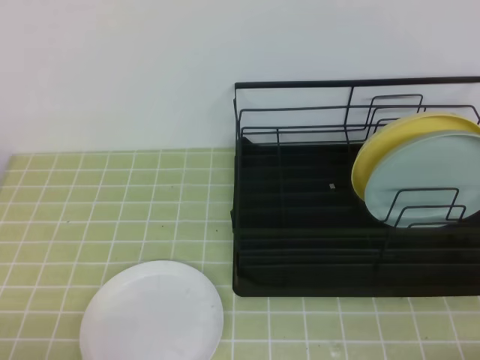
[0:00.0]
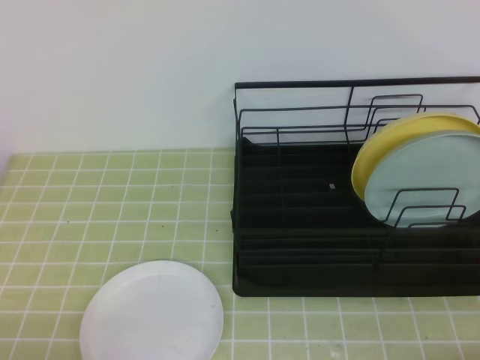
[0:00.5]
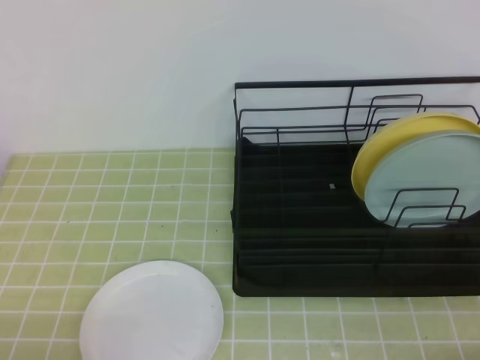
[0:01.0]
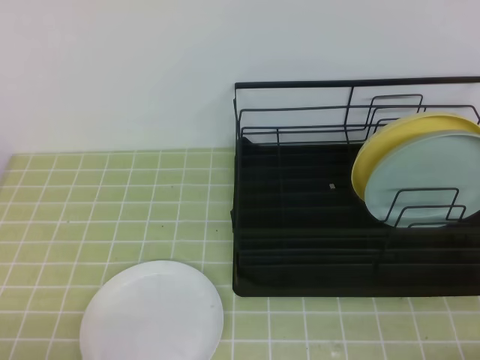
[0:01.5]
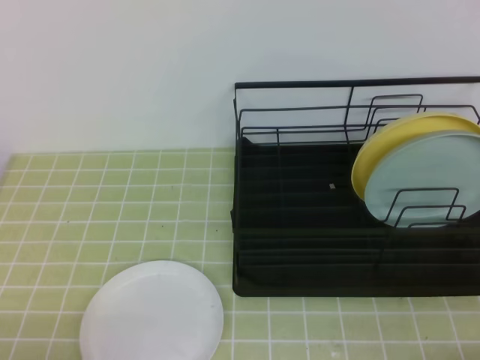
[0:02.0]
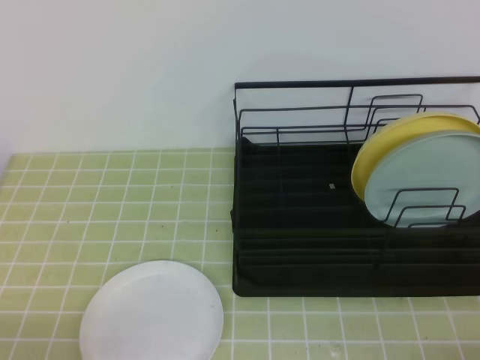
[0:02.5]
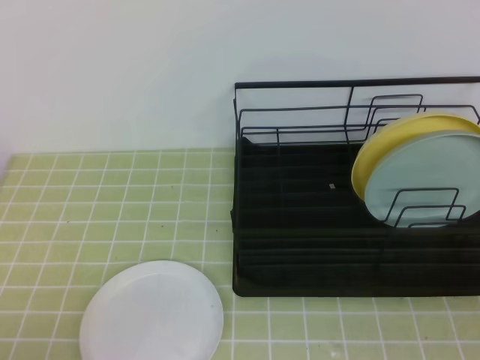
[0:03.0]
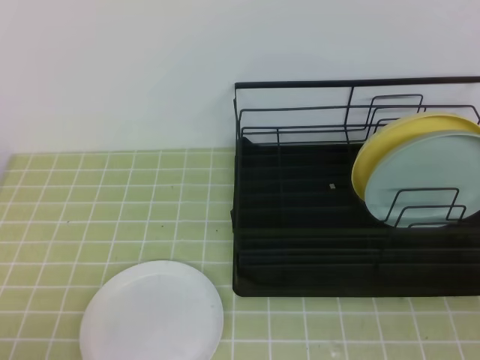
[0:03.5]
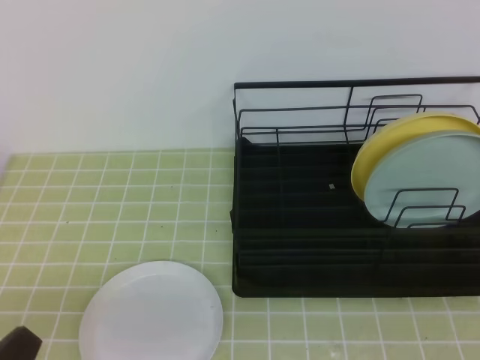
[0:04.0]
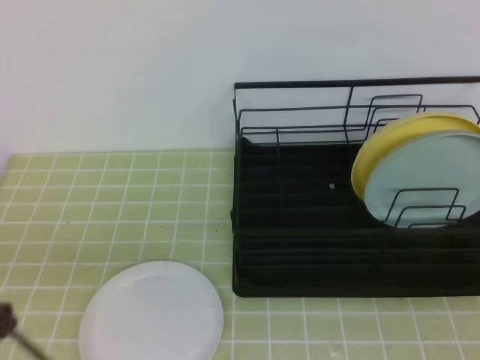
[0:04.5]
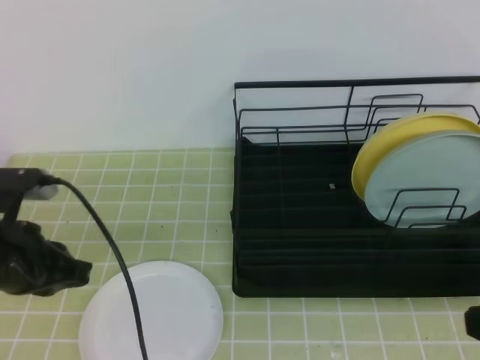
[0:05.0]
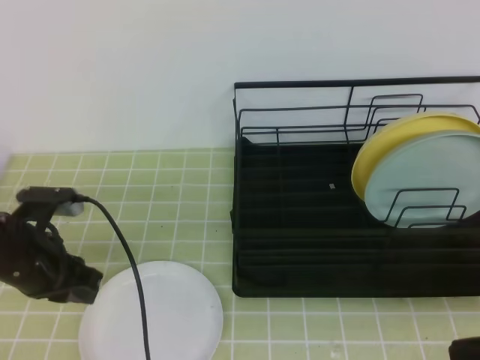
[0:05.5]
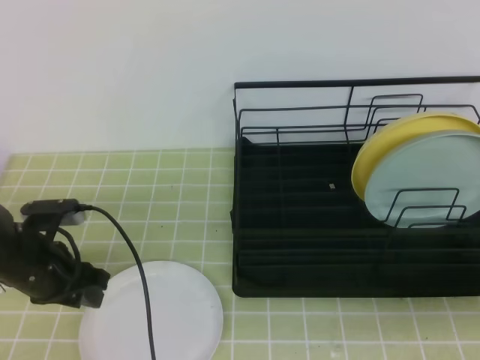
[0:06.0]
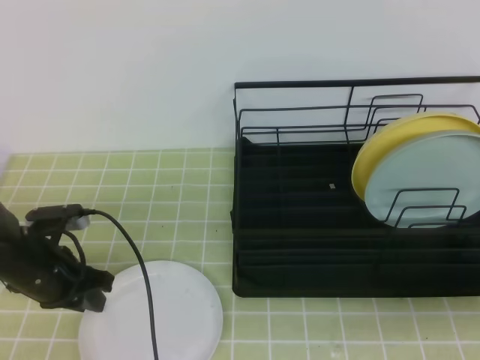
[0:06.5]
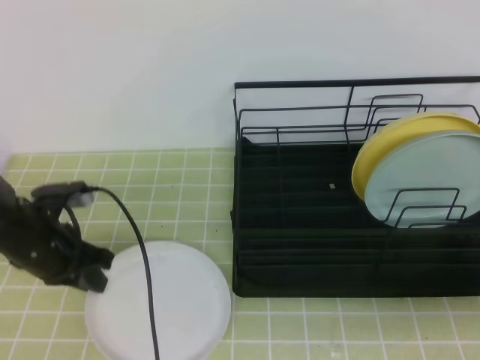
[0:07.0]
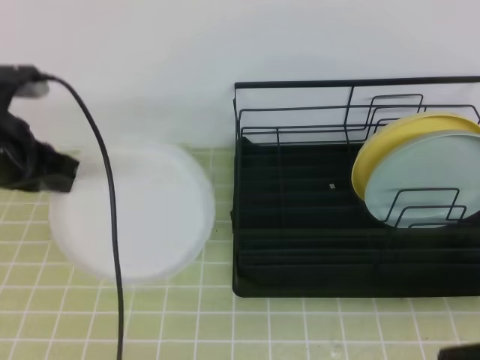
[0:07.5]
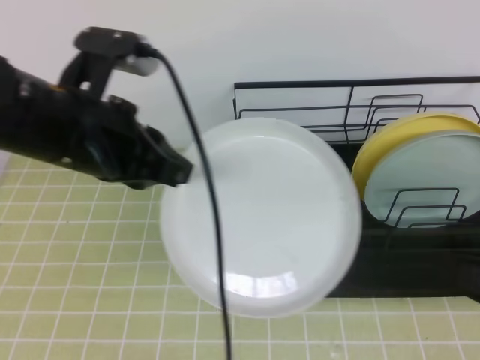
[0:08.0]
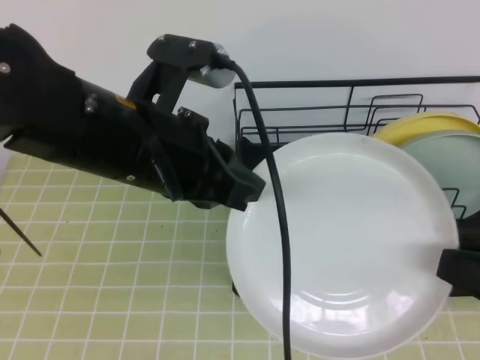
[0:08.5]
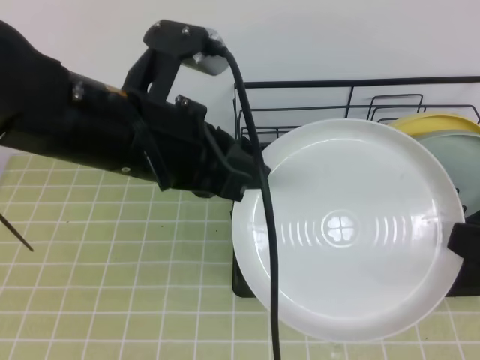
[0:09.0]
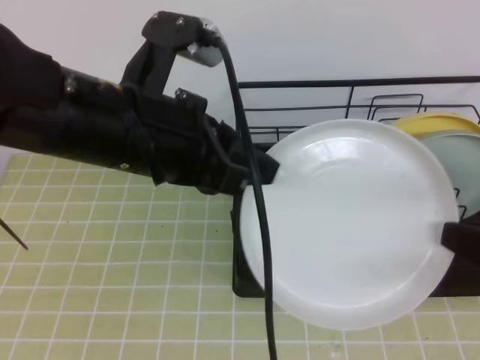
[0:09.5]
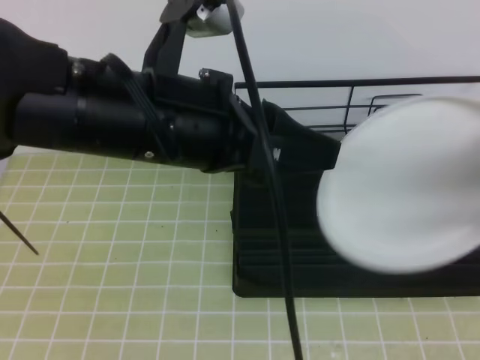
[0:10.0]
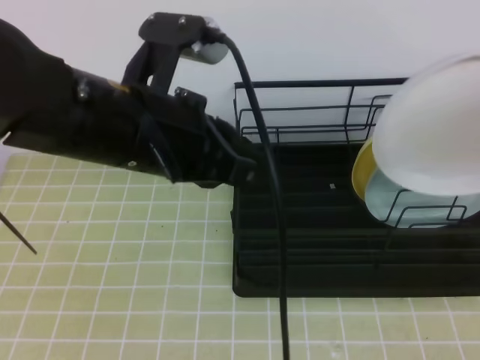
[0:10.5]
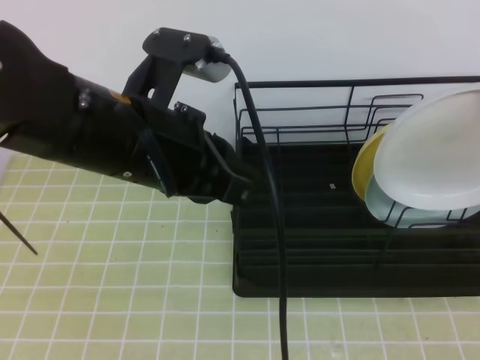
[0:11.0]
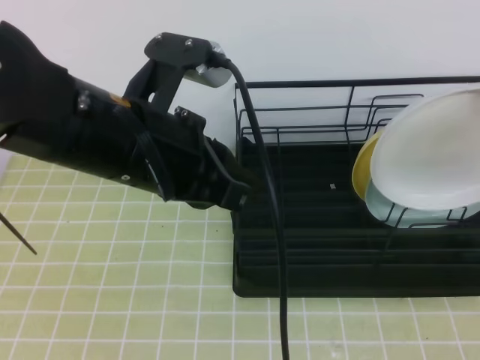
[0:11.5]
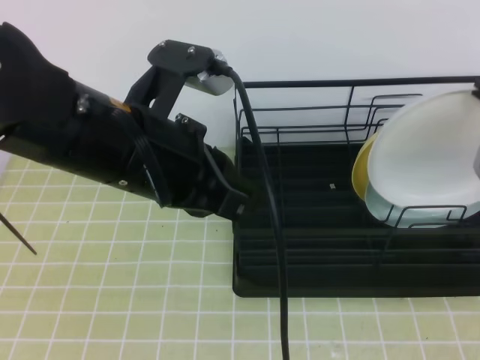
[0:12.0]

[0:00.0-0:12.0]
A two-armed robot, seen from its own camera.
Step, 0:00.0 to 0:05.5: Left grab the white plate.
0:02.0 to 0:04.0: The left gripper changes place by roughly 5 cm; the right gripper goes roughly 10 cm upward.
0:04.0 to 0:06.0: The left gripper heads forward, covering approximately 25 cm, and opens its fingers.
0:06.0 to 0:08.0: The left gripper travels upward by approximately 20 cm, and closes its fingers.
0:08.0 to 0:10.0: The right gripper heads forward, covering about 5 cm, and opens, then closes again; the left gripper is displaced to the right by about 10 cm, and opens up.
0:10.0 to 0:12.0: The left gripper closes up; the right gripper travels forward by some 10 cm.

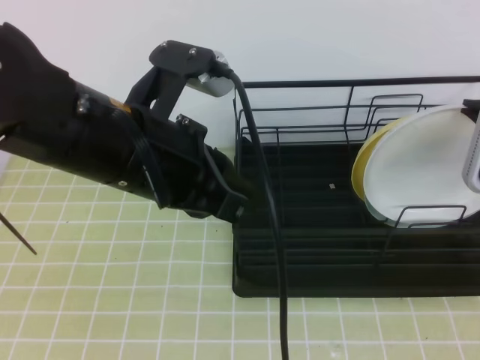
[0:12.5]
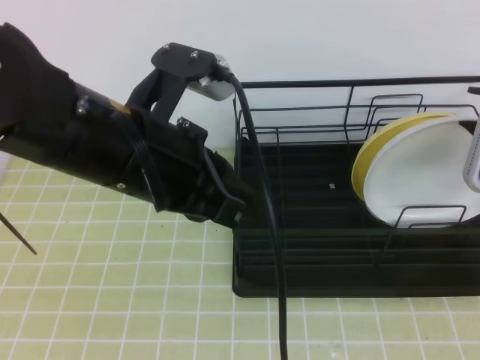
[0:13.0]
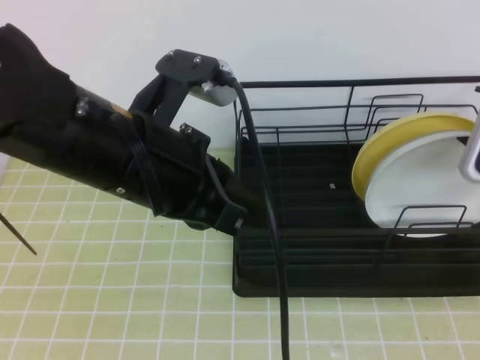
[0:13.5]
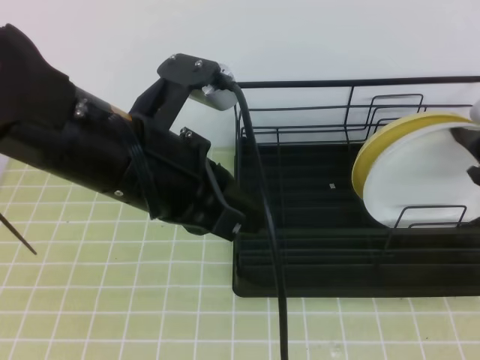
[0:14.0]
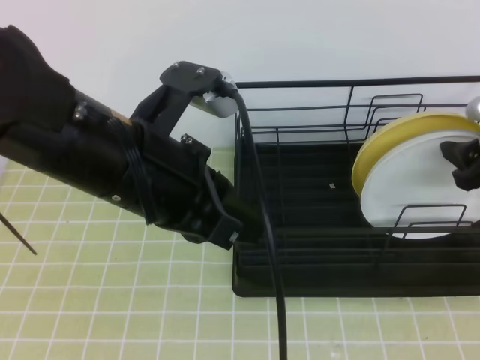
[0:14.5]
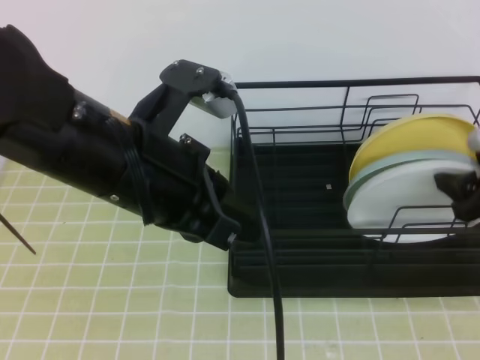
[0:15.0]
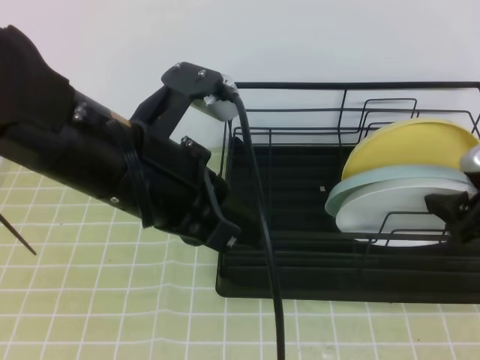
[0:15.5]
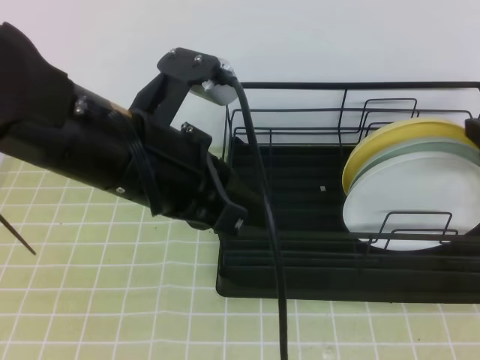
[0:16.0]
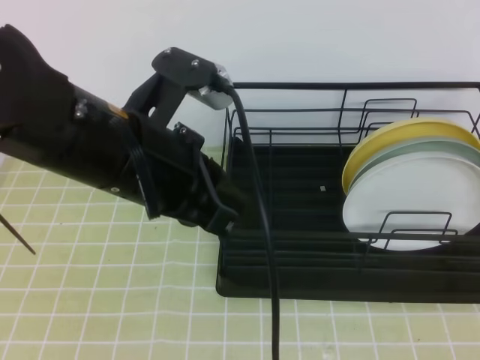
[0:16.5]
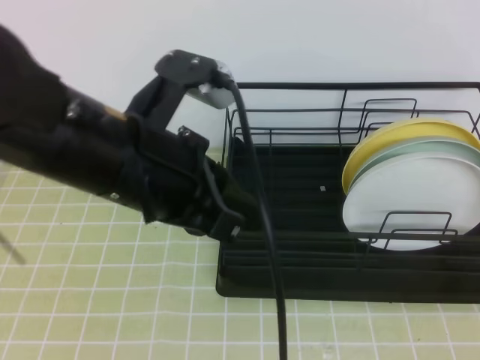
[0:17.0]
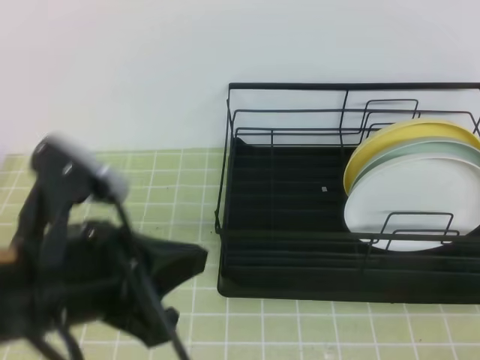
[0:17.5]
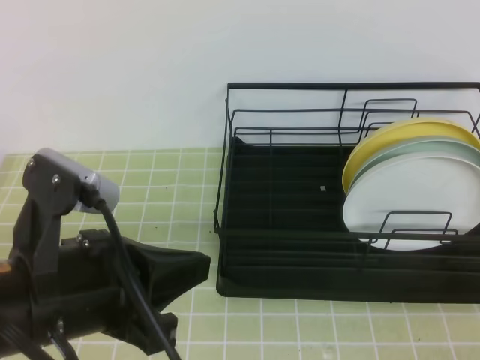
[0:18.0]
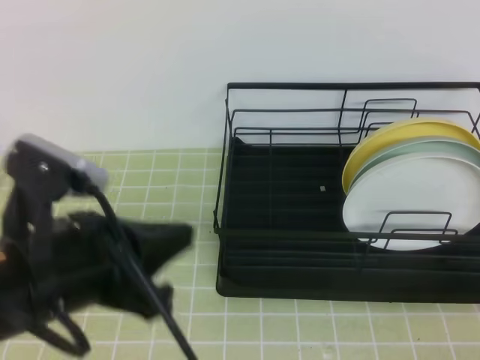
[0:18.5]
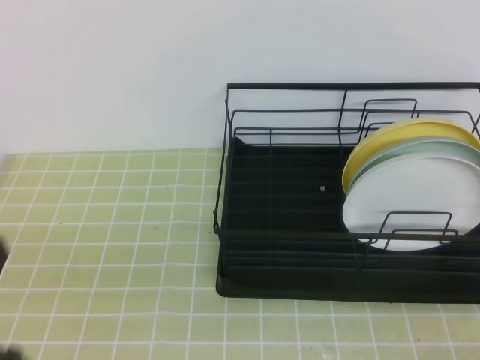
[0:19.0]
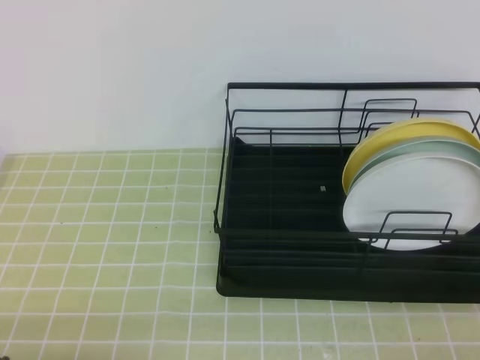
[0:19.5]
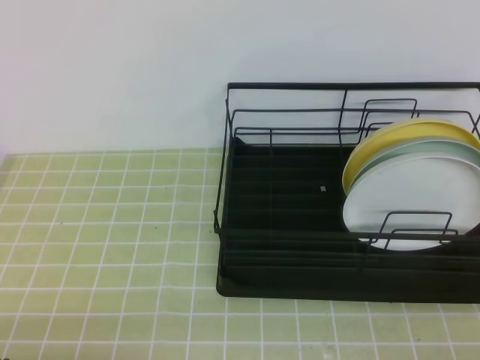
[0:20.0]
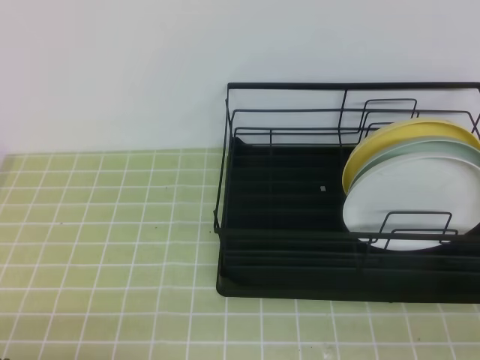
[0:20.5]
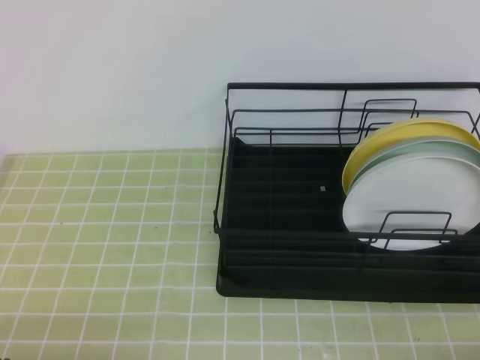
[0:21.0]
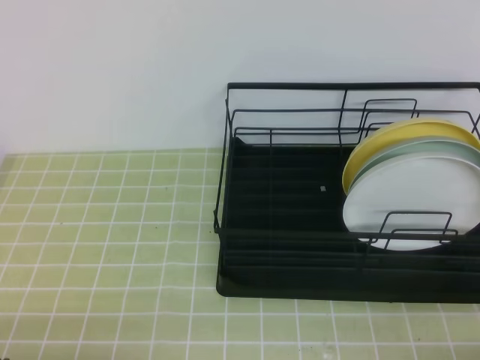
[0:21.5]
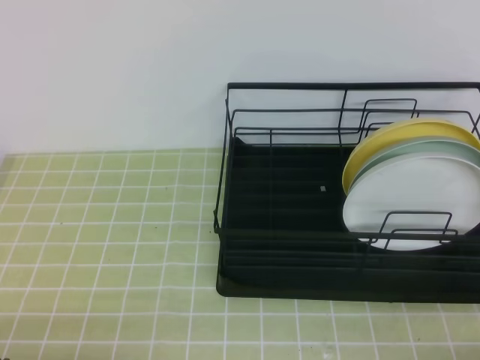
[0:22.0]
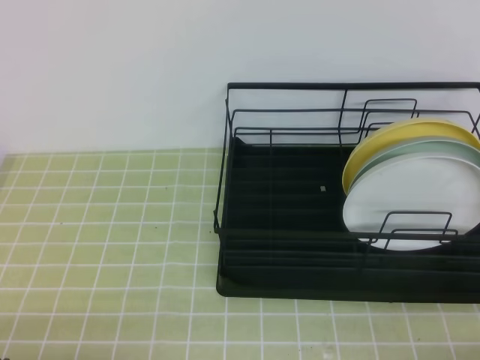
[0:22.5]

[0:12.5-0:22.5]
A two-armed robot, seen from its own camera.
0:12.5 to 0:14.5: The right gripper opens.
0:14.5 to 0:16.5: The right gripper shifts roughly 10 cm upward and backward, and closes.
0:16.5 to 0:18.5: The right gripper shifts some 25 cm backward, and closes up. Meanwhile the left gripper moves backward and to the left, about 10 cm.
0:18.5 to 0:20.5: The left gripper moves downward, to the left and backward, roughly 20 cm.
